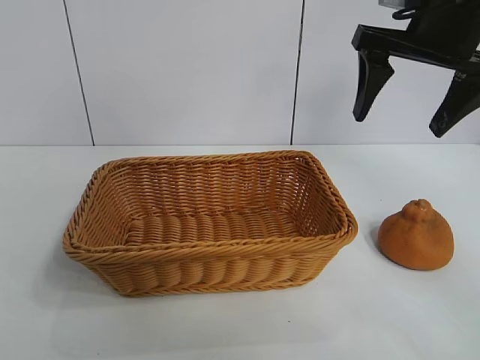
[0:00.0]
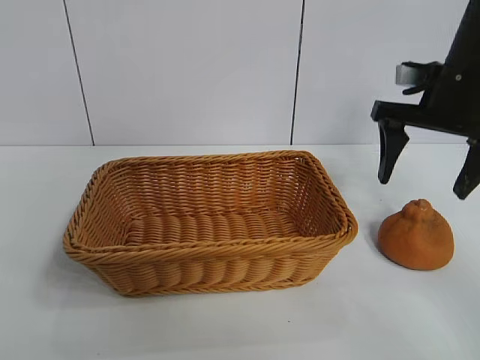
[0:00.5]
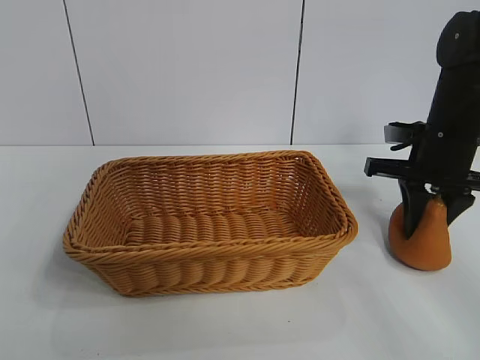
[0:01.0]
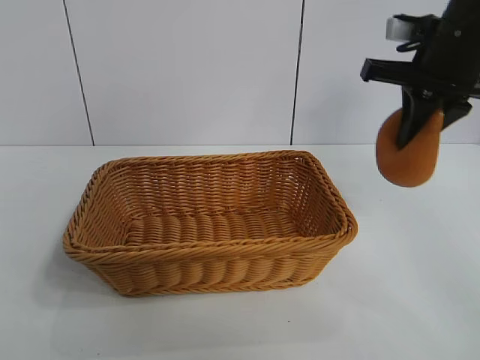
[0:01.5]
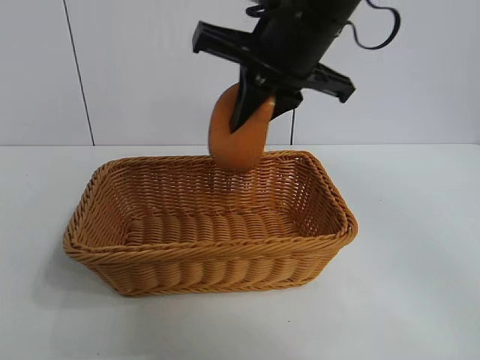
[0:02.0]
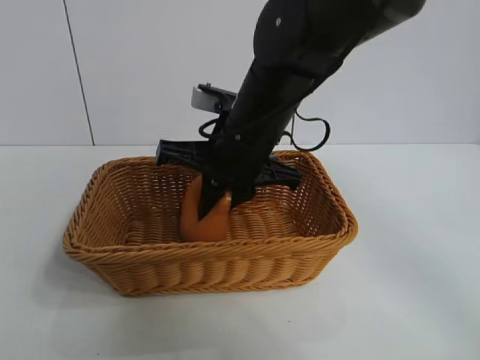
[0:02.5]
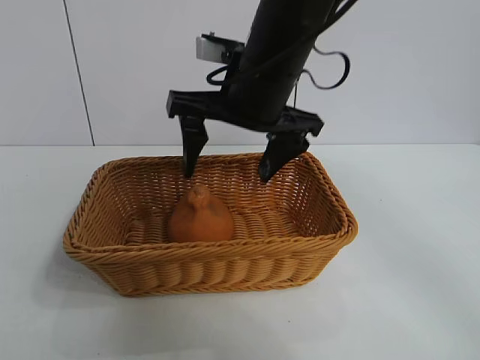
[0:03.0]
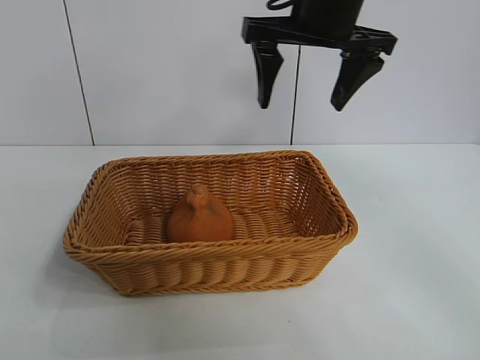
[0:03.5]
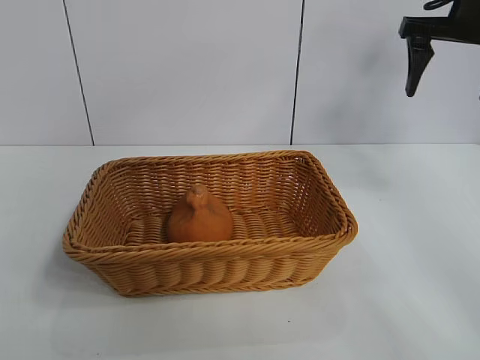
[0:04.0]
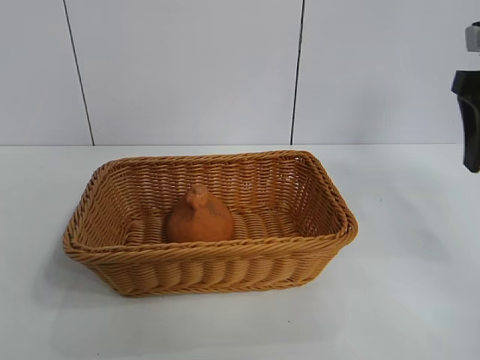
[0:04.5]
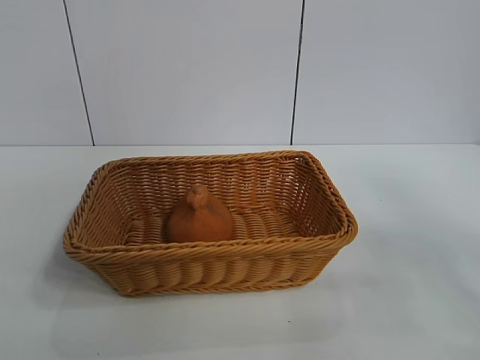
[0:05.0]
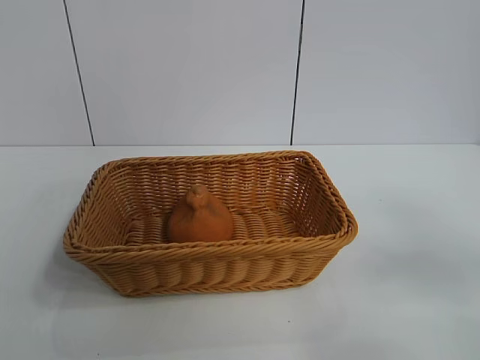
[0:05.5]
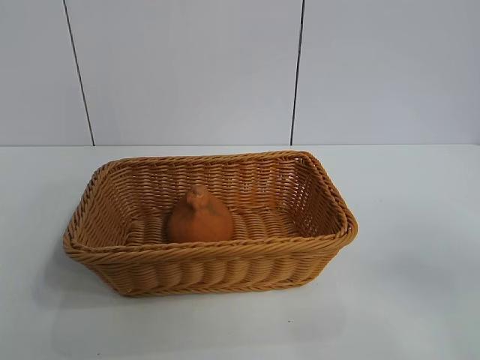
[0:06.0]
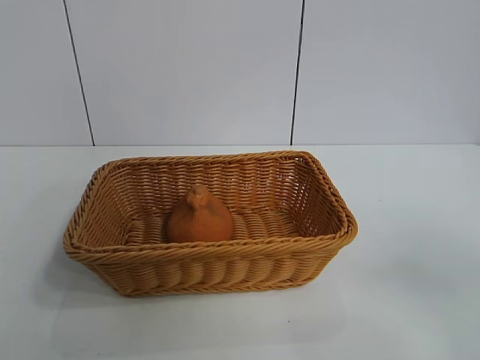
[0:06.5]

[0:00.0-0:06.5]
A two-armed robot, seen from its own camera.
Task of the whole recording: pick up the orange and put it into the basket.
Step, 0:01.5 to 0:02.5: Place the orange in the basket with right gripper.
